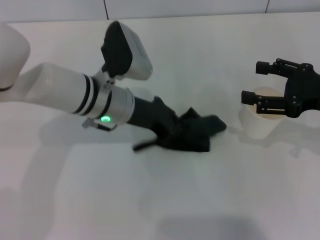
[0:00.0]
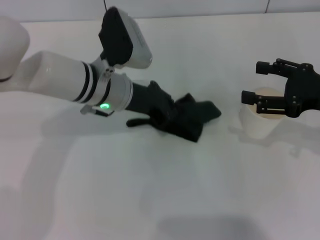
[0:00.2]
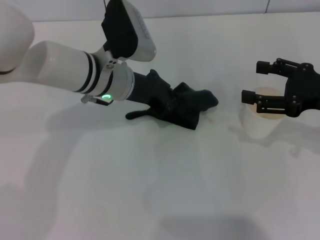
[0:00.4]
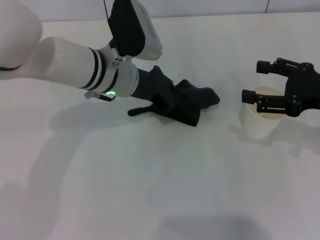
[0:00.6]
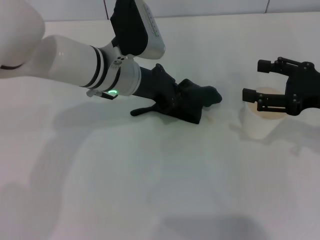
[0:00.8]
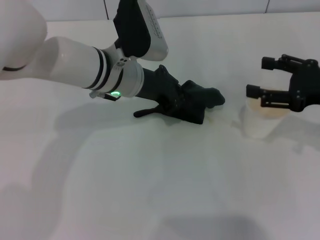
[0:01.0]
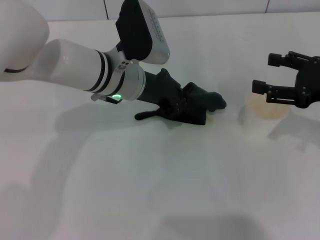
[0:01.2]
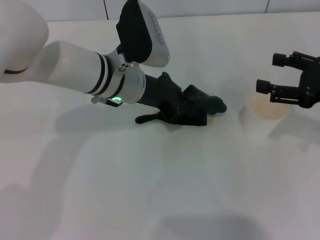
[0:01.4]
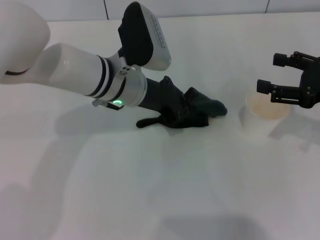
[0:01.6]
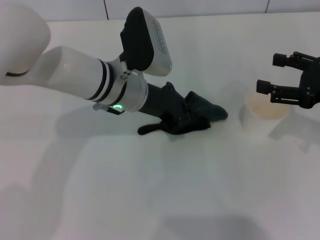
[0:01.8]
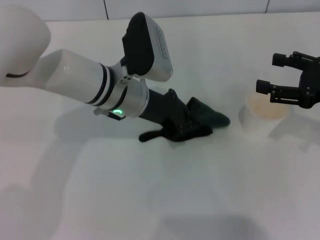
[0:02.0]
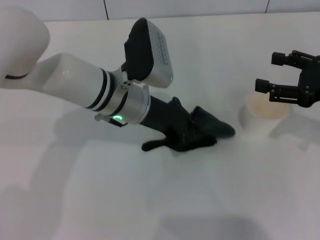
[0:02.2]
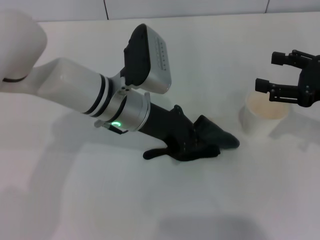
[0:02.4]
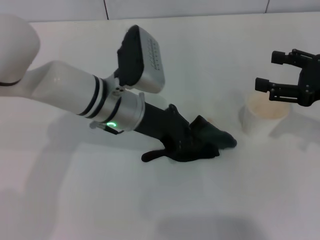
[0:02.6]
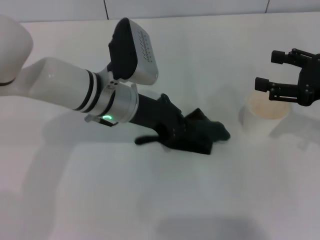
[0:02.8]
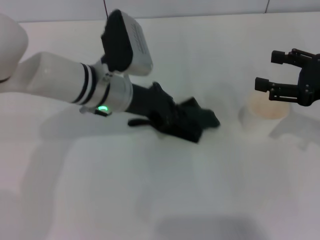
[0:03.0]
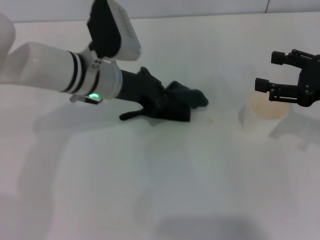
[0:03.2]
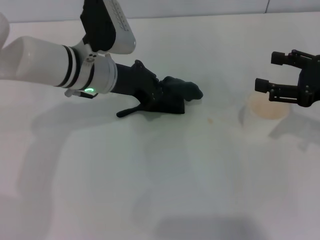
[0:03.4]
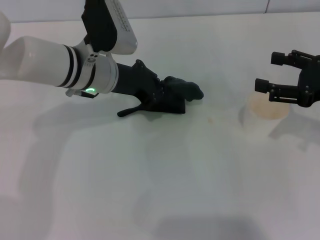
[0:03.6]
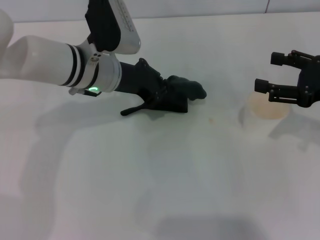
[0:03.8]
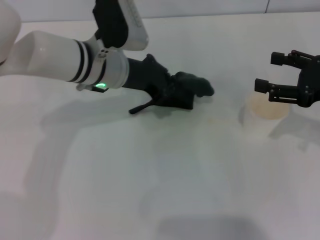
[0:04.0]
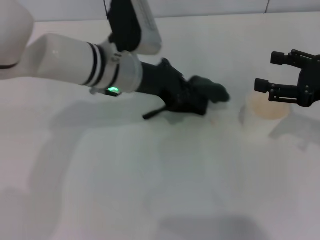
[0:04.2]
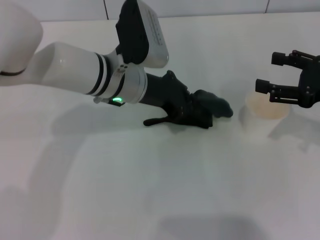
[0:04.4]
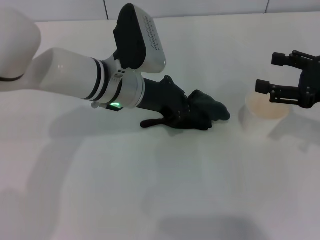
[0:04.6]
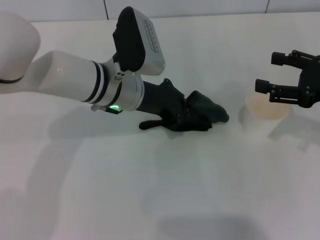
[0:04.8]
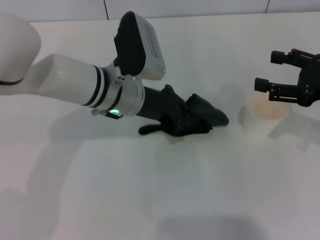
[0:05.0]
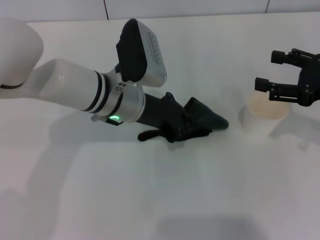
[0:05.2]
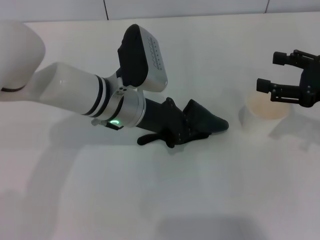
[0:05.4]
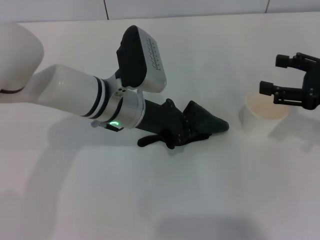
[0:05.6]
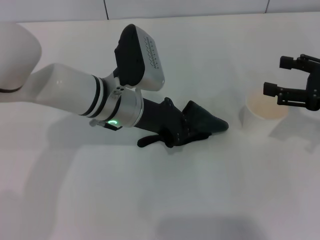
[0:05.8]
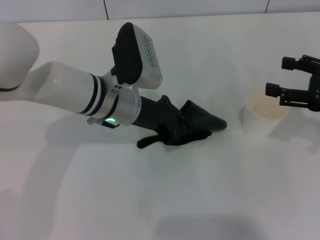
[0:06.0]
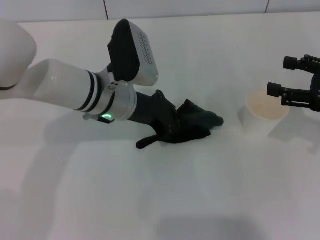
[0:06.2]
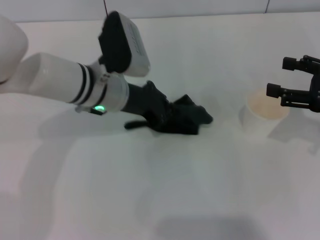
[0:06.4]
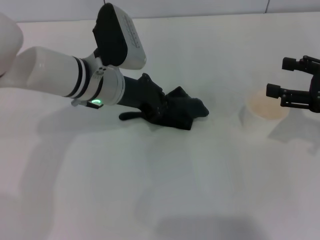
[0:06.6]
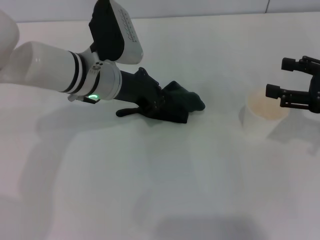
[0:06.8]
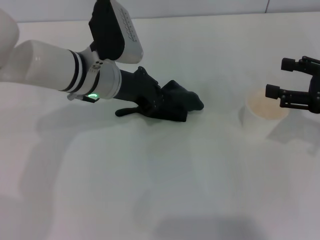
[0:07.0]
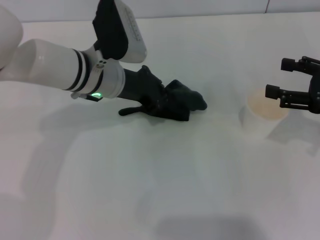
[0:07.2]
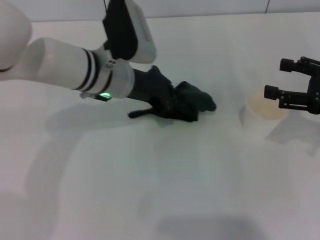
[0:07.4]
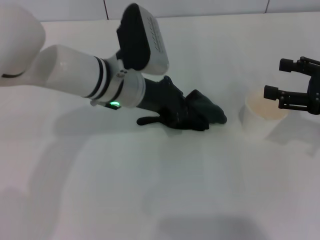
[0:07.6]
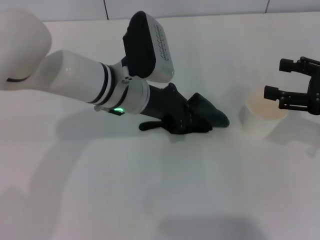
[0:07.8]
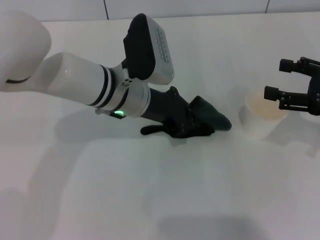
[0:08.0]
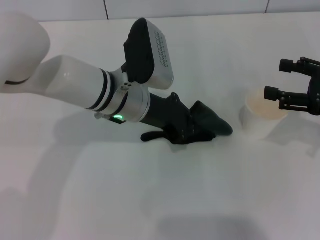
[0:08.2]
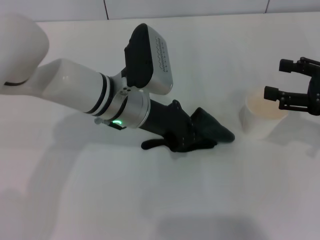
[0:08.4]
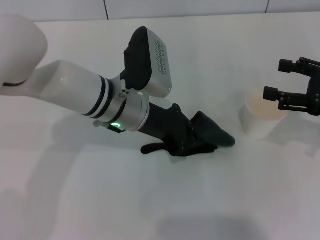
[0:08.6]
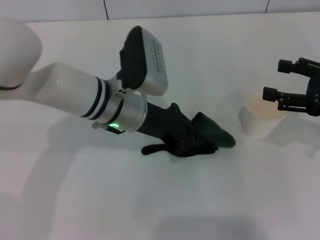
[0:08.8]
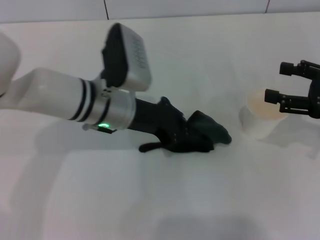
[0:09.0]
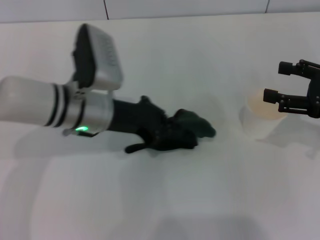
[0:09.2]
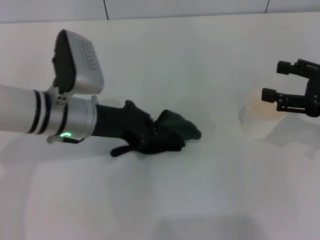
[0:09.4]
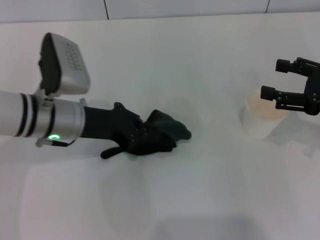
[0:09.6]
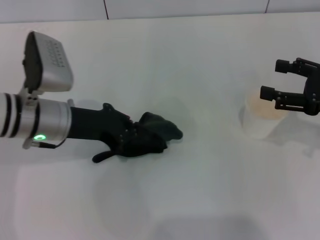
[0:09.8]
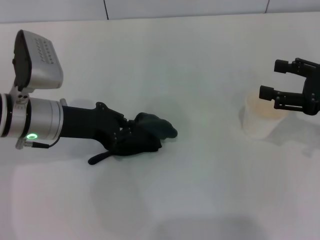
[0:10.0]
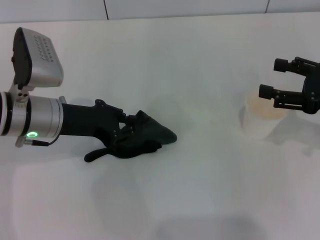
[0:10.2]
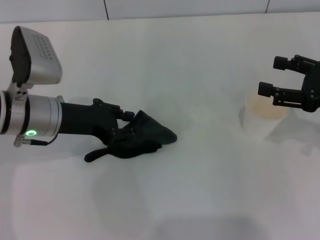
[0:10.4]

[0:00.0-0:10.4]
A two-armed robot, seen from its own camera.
Step, 0:00.0 to 0:10.0: Wipe the stains off the table with the left gripper.
0:01.4 to 0:07.4: There are only small adjustments of the grippers.
0:09.0 to 0:10.4: The left gripper is displaced to the left by roughly 10 cm.

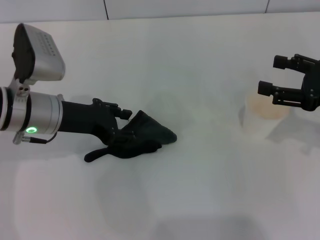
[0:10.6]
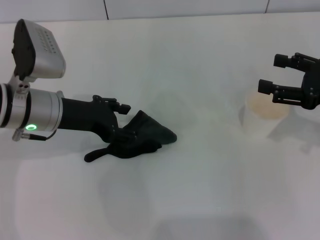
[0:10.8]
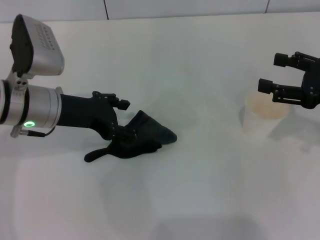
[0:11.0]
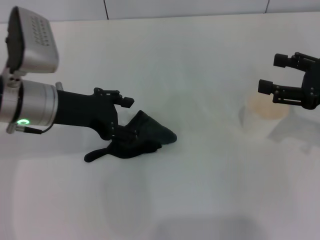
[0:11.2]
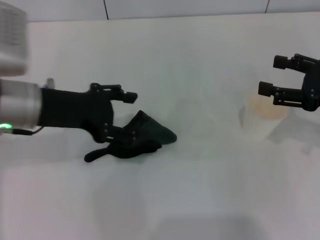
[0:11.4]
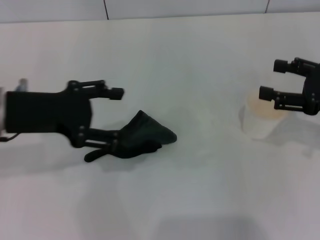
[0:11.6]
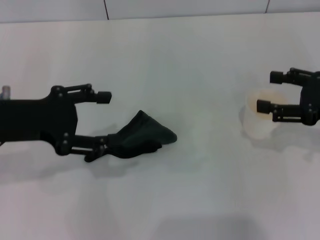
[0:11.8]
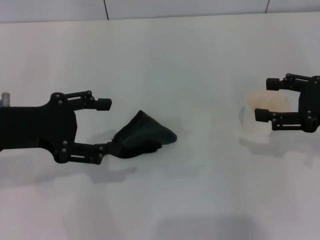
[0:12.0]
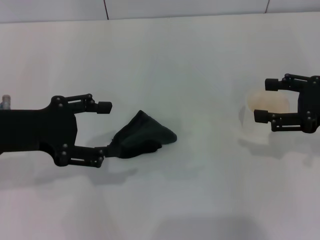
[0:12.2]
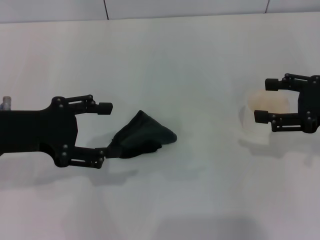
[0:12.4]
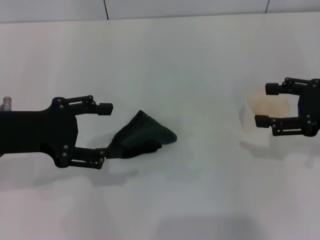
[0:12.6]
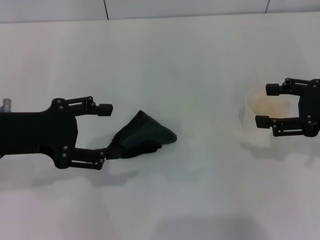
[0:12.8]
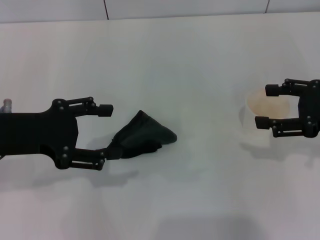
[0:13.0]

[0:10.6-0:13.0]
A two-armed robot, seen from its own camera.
Step, 0:10.6 to 0:11.6: Place the rag on the table with the left gripper.
0:10.6 to 0:11.8: The left gripper shifts approximately 10 cm upward, backward and to the left, and opens up.
0:11.8 to 0:13.0: The grippers make only small movements.

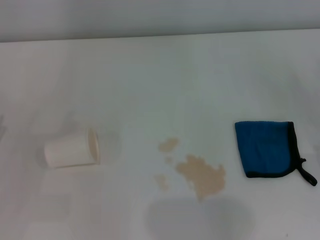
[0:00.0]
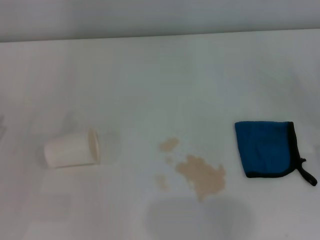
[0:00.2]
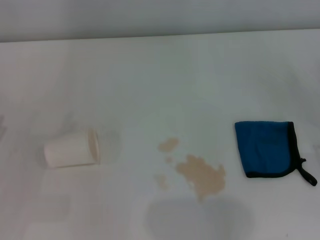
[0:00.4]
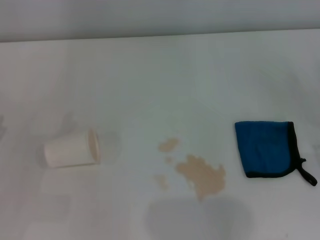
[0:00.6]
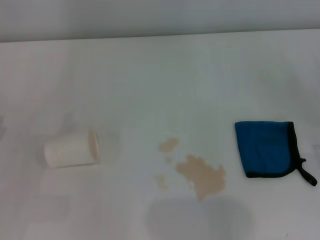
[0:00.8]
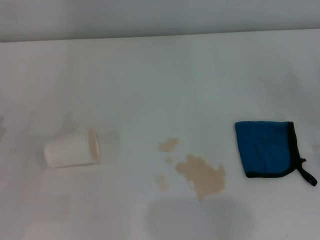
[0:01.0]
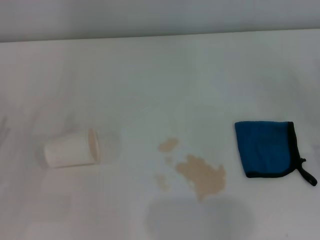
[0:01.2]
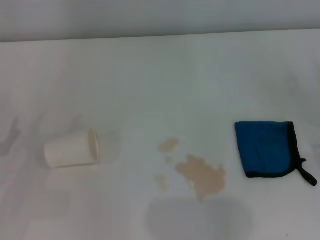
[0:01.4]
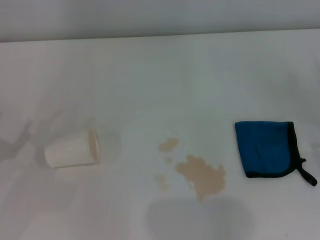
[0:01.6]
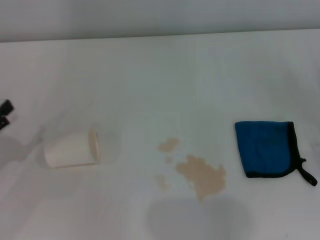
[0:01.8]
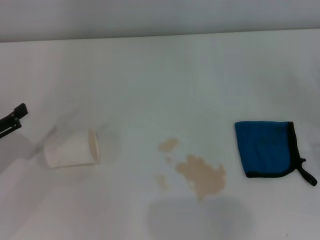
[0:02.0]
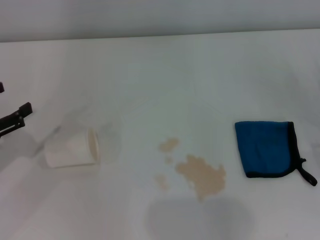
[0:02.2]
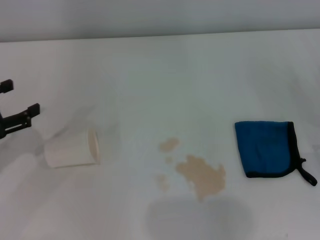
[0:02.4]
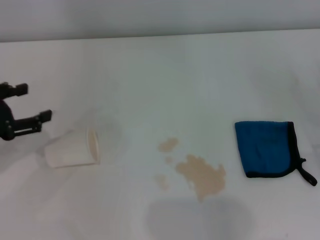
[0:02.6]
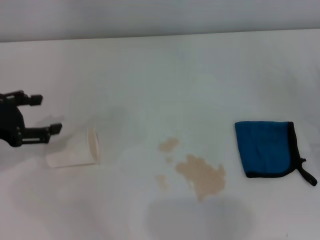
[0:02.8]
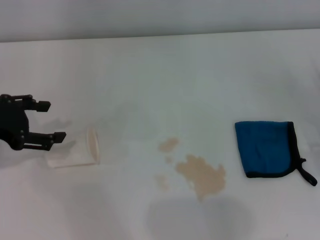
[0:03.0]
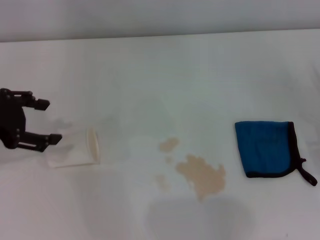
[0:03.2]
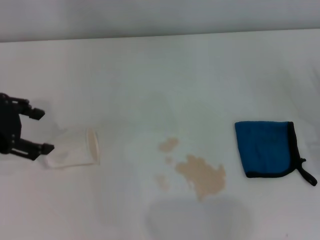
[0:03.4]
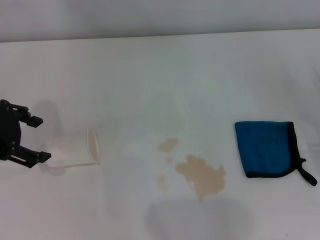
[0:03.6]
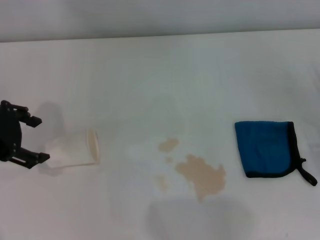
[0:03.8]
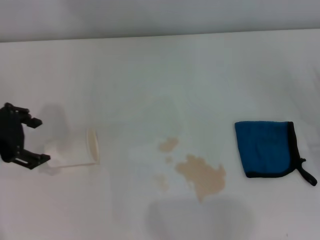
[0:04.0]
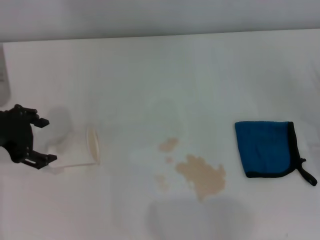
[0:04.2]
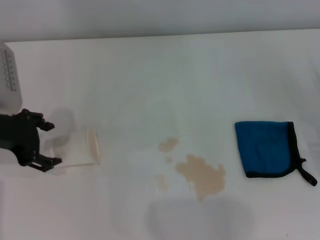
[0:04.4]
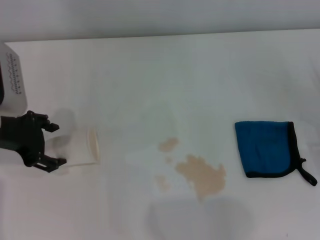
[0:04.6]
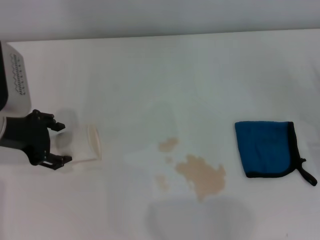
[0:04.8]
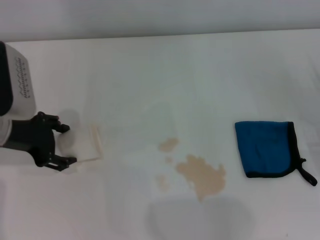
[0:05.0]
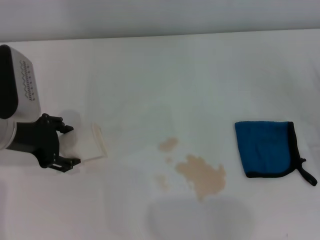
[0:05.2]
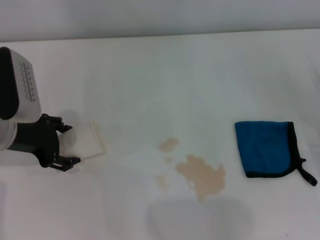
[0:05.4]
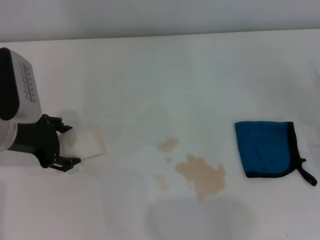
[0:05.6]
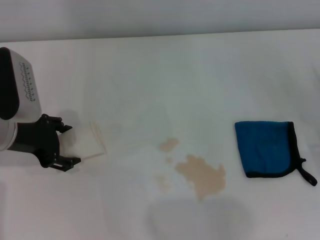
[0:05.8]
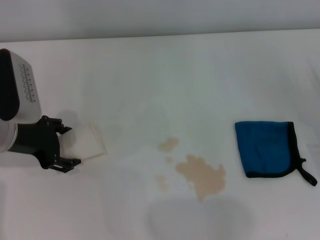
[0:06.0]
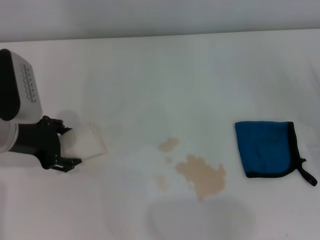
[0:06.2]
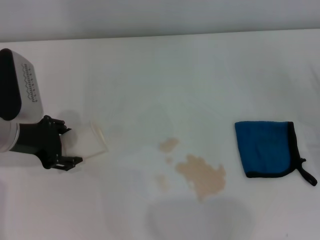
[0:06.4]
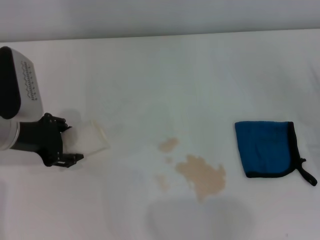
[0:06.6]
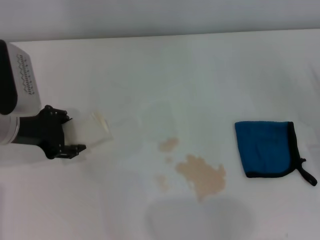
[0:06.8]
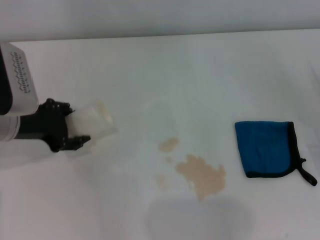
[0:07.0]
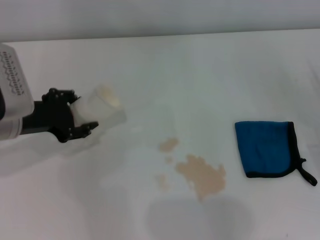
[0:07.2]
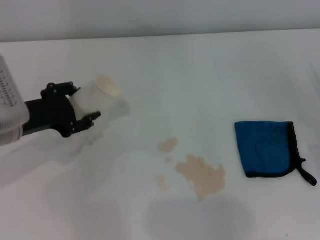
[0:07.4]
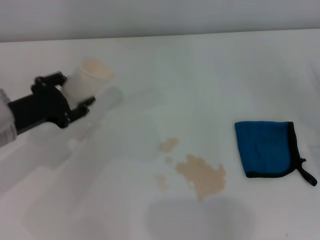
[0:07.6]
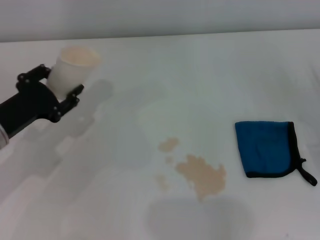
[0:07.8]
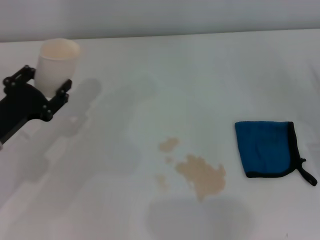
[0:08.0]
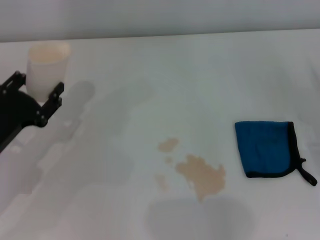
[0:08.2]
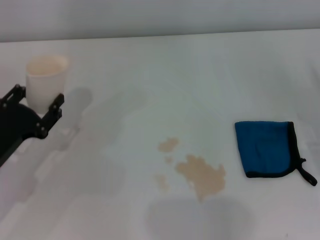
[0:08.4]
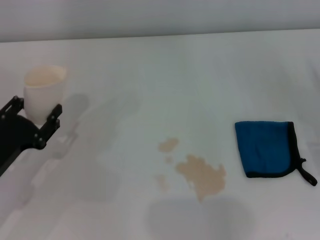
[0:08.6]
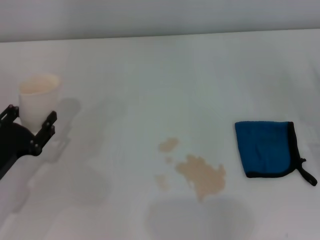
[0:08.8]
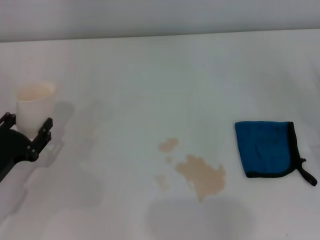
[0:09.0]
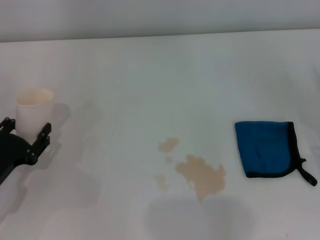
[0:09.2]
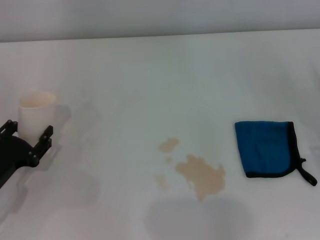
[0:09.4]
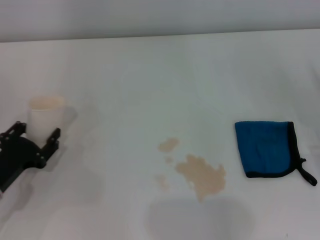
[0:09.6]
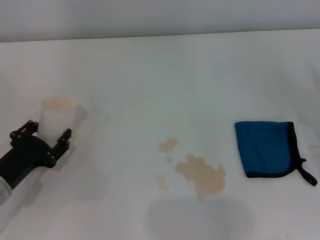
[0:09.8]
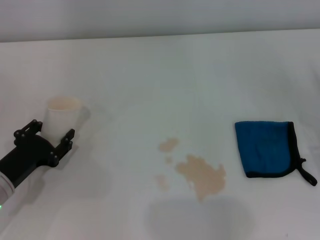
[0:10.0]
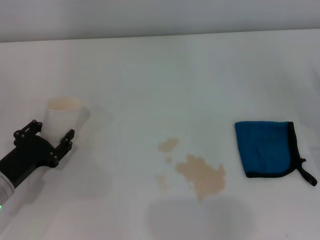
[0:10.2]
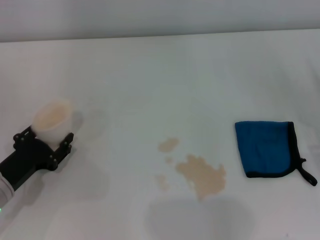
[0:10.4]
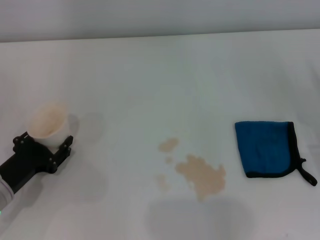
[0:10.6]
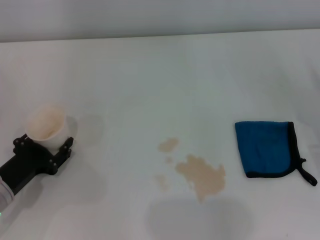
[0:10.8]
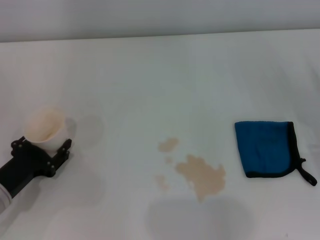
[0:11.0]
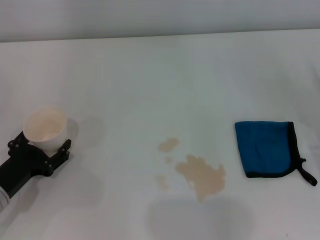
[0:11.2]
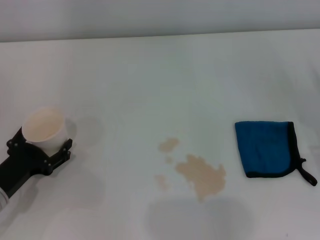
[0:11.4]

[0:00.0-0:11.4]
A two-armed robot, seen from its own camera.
Step, 0:00.0 to 0:04.8: Grasp the paper cup with the left gripper.
0:01.4 to 0:02.8: The left gripper travels upward and forward by roughly 10 cm.
0:02.8 to 0:04.2: The left gripper travels to the right by about 5 cm.
0:04.2 to 0:05.6: The left gripper shifts about 5 cm downward.
0:05.6 to 0:07.2: The left gripper closes.
0:07.2 to 0:08.6: The left gripper goes about 10 cm downward and backward.
0:08.6 to 0:10.0: The grippers move only a little.
0:10.0 to 0:11.4: The left gripper opens.
